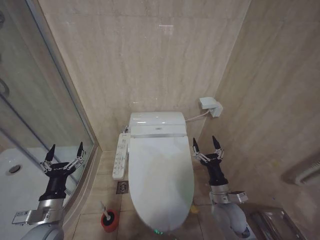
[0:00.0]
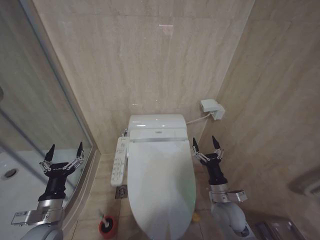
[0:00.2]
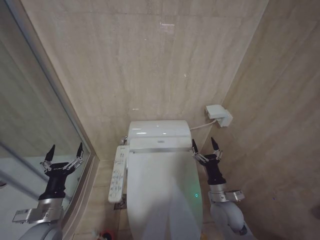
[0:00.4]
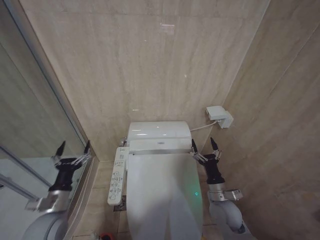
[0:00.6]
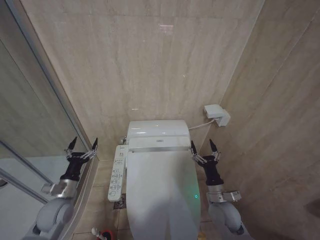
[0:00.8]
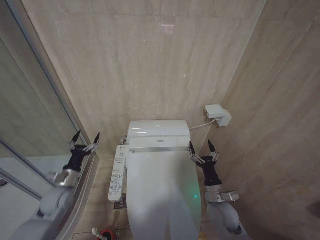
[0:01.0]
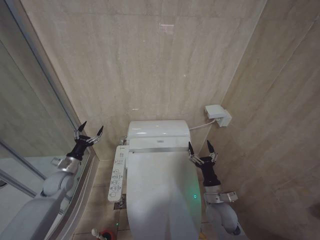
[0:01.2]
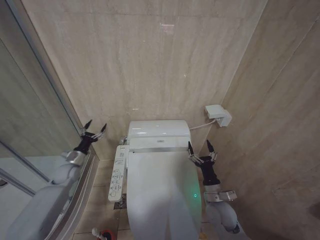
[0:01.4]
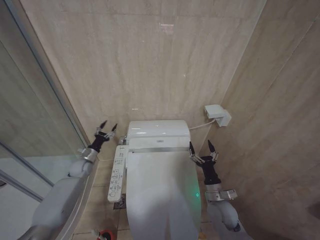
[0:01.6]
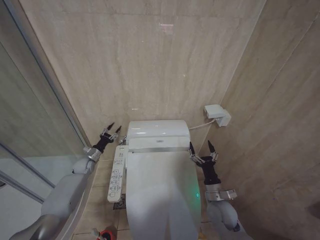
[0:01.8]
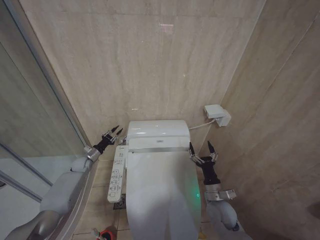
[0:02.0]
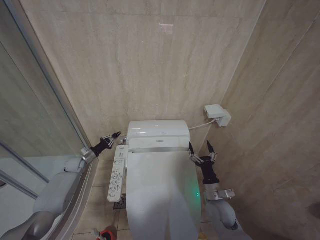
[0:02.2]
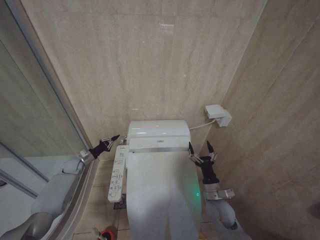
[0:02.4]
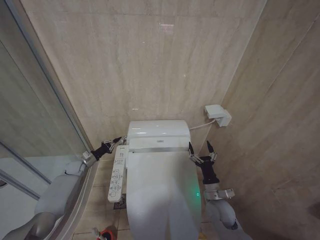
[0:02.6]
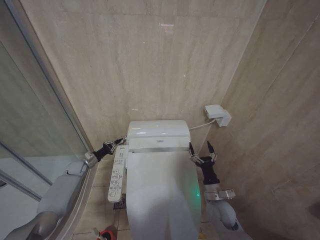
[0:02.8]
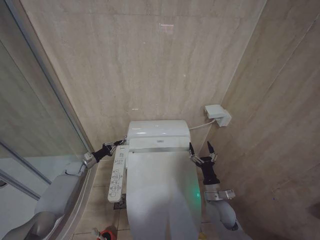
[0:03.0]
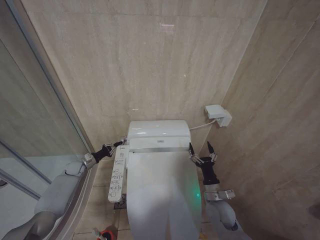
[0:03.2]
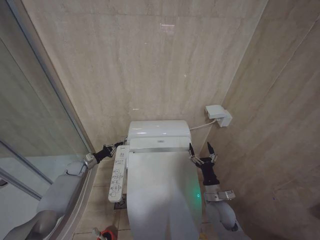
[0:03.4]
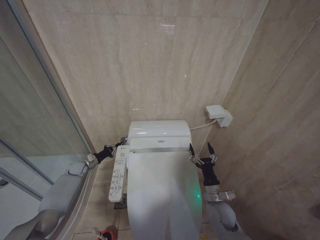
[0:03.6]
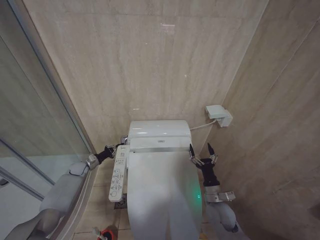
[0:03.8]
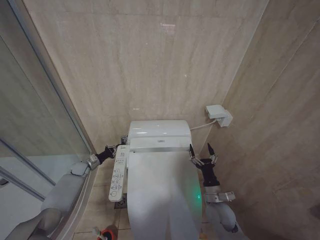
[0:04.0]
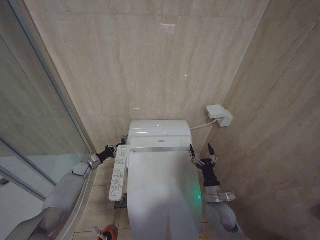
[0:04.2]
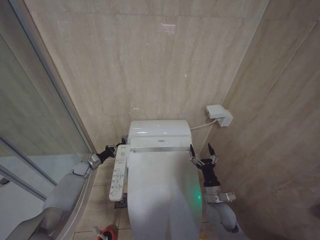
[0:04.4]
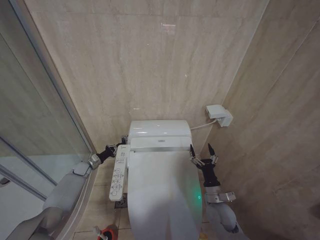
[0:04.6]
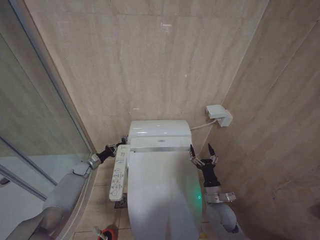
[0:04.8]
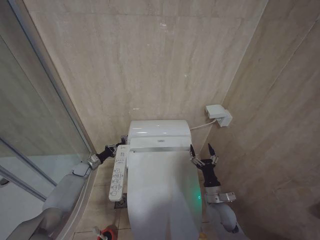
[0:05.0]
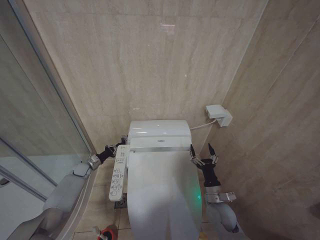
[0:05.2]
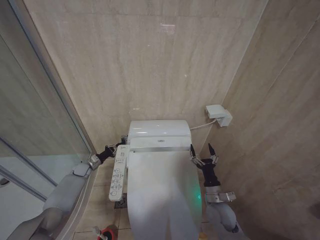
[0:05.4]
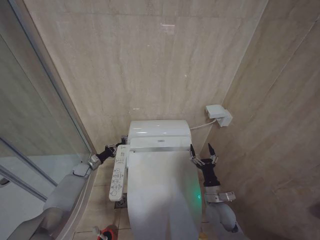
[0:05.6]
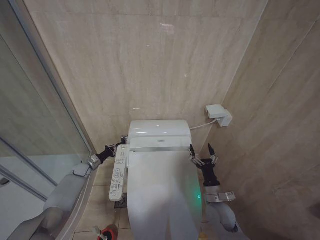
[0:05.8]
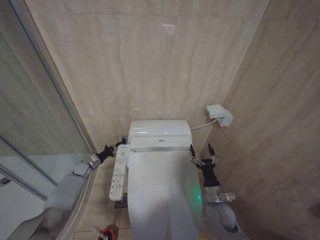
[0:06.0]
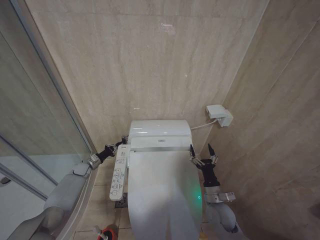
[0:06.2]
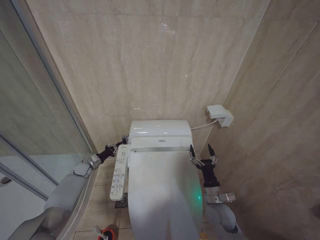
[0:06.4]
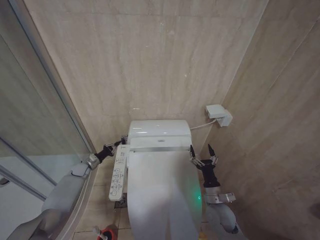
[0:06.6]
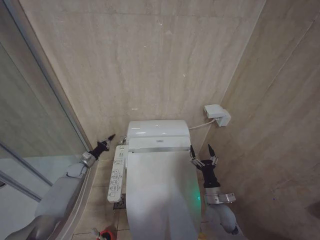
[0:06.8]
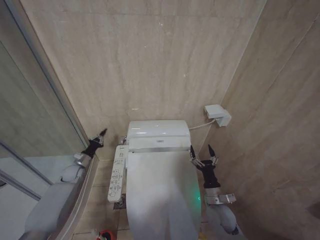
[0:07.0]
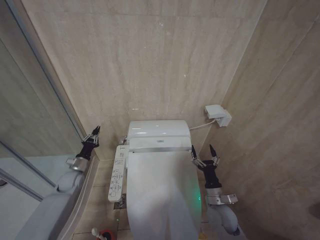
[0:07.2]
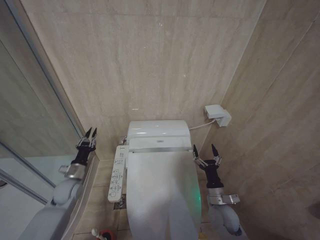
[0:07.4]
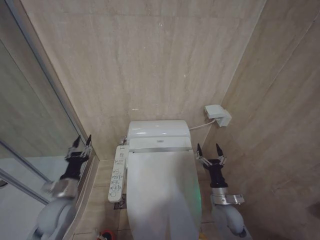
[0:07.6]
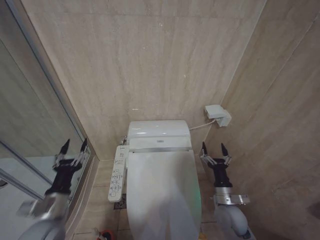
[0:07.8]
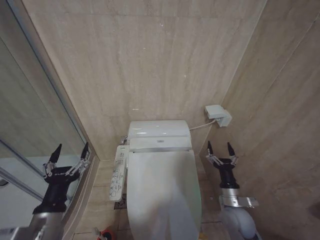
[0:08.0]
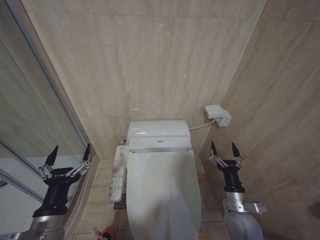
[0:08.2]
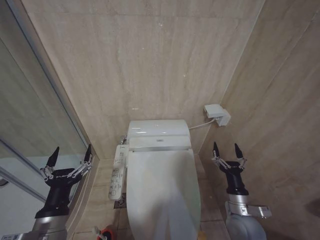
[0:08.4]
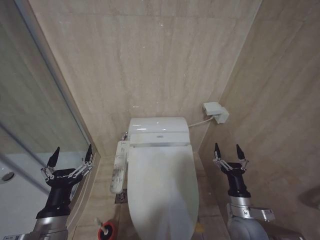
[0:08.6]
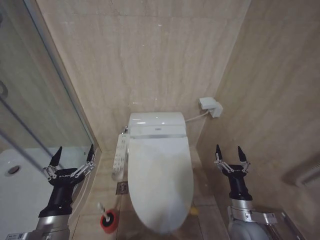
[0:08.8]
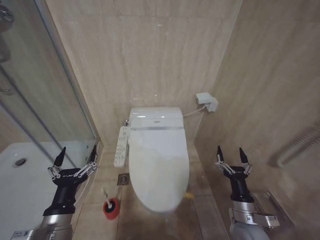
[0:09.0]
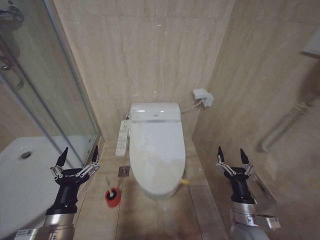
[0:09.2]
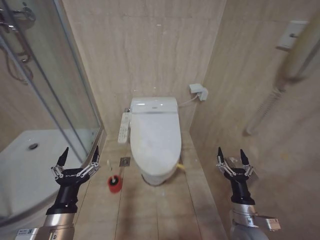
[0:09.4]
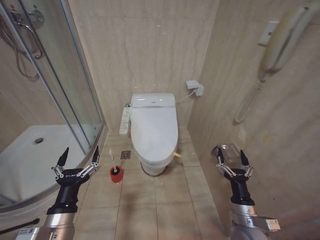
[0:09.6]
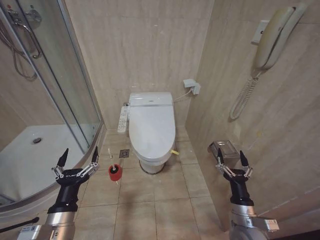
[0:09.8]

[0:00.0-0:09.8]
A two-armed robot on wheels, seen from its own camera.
Task of the whole recording: Open the toilet lid, clean the toilet bowl with a toilet brush, close the toilet lid, and flush.
0:00.0 to 0:01.4: The left gripper heads forward, covering roughly 25 cm.
0:01.4 to 0:02.8: The left gripper travels forward and downward by approximately 10 cm, and closes.
0:02.8 to 0:04.2: The grippers stay close to where they were, moving slightly.
0:04.2 to 0:05.6: Neither gripper changes place.
0:07.0 to 0:08.4: The right gripper travels upward and backward by roughly 10 cm. The left gripper goes roughly 40 cm backward, upward and to the right, and opens up.

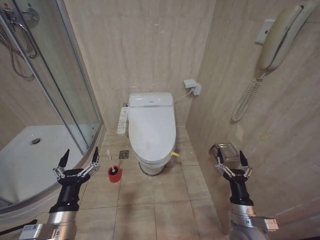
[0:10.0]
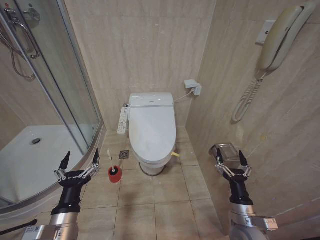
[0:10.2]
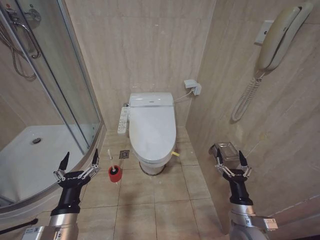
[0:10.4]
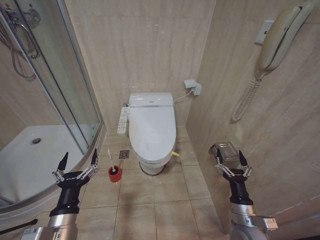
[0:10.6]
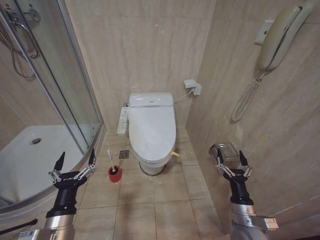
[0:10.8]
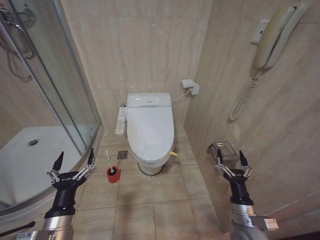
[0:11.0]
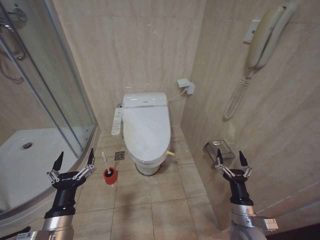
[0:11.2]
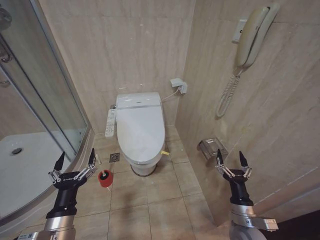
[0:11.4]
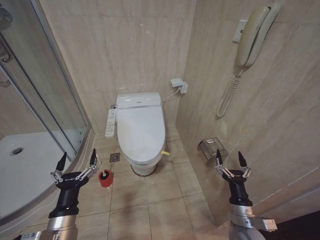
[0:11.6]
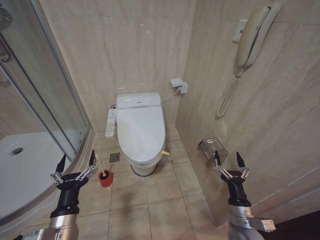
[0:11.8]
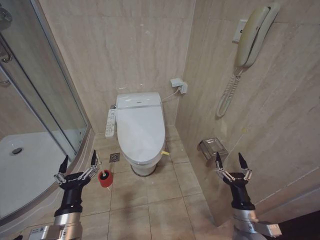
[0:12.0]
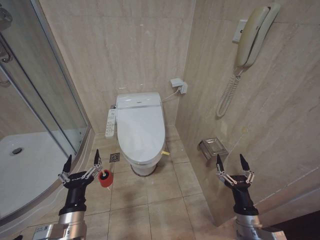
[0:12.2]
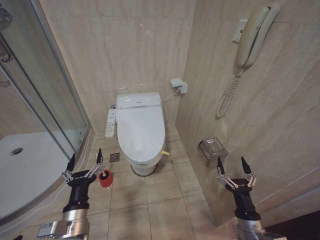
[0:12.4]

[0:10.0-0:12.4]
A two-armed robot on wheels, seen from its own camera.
Task of the whole recording: Open the toilet lid, clean the toilet bowl with a toilet brush, close the toilet lid, and flush.
0:10.0 to 0:11.2: Both grippers stay about where they are.
0:11.2 to 0:12.4: The grippers make only small movements.

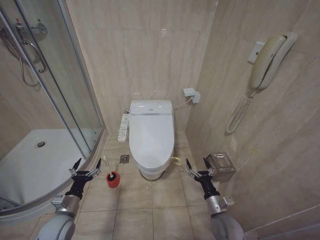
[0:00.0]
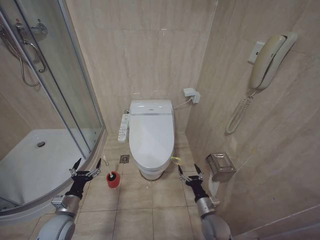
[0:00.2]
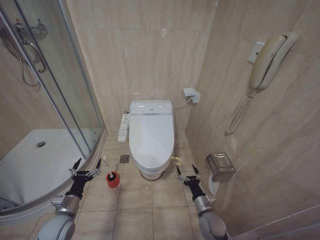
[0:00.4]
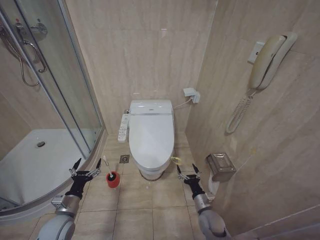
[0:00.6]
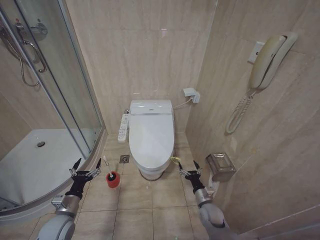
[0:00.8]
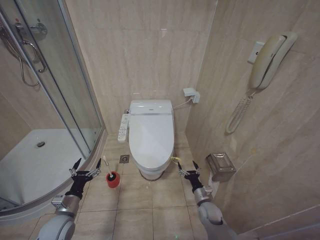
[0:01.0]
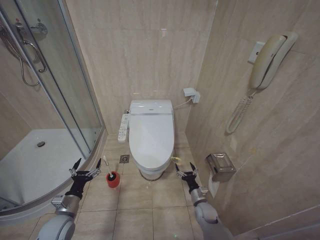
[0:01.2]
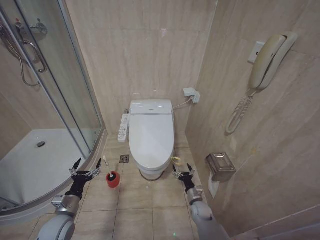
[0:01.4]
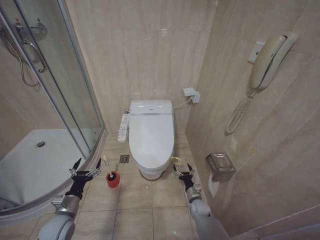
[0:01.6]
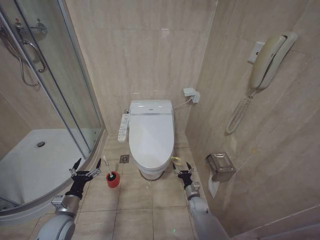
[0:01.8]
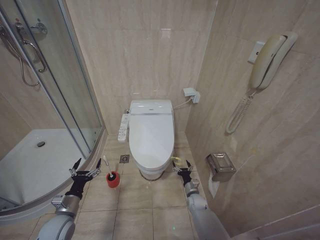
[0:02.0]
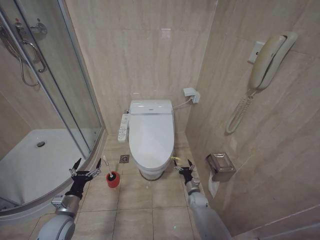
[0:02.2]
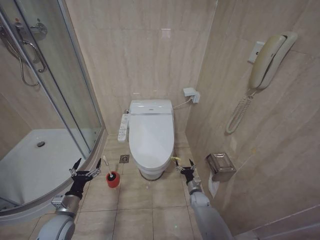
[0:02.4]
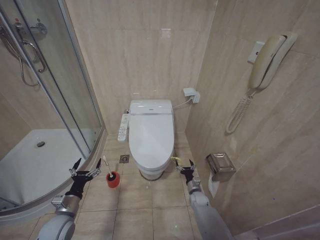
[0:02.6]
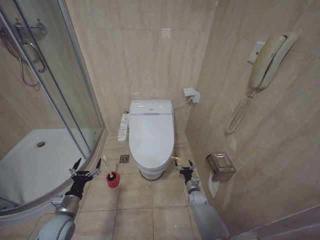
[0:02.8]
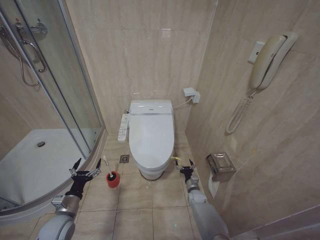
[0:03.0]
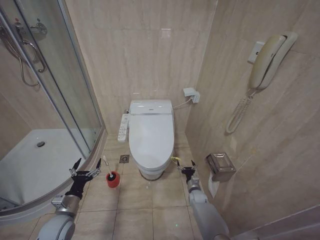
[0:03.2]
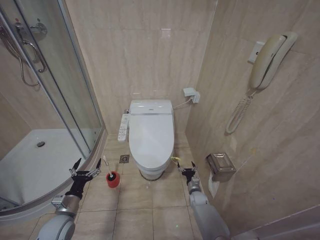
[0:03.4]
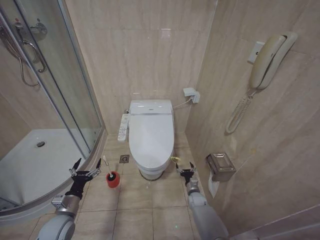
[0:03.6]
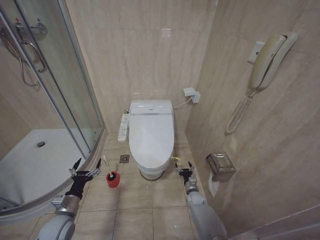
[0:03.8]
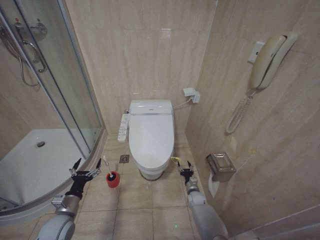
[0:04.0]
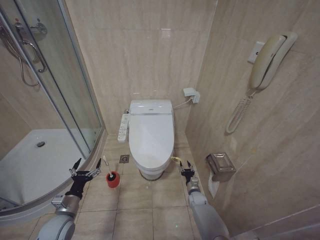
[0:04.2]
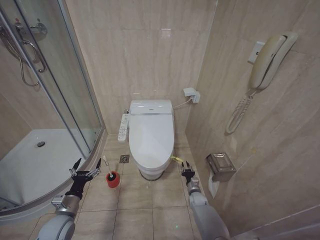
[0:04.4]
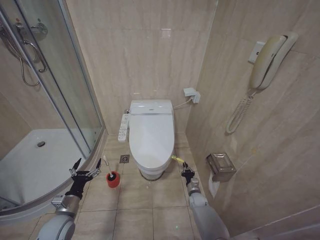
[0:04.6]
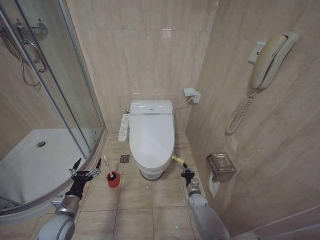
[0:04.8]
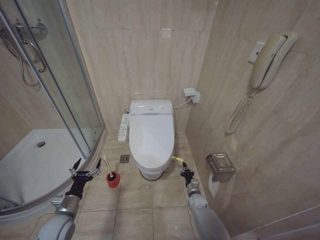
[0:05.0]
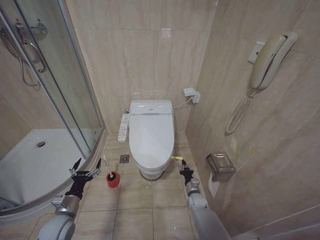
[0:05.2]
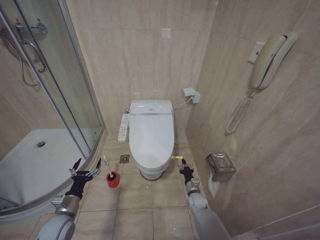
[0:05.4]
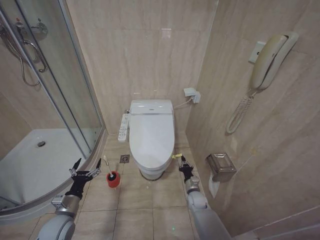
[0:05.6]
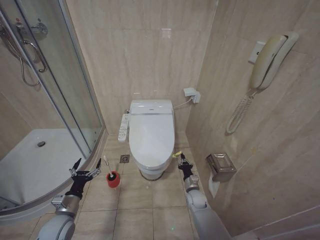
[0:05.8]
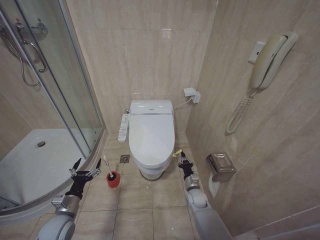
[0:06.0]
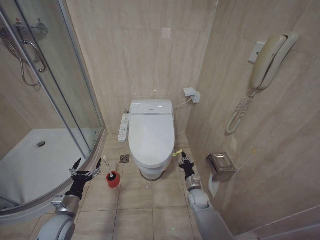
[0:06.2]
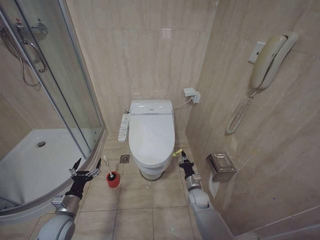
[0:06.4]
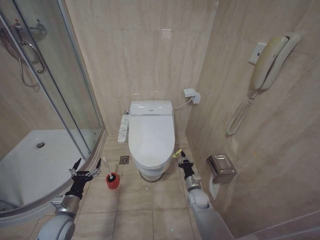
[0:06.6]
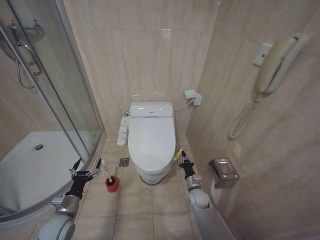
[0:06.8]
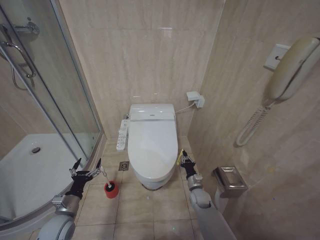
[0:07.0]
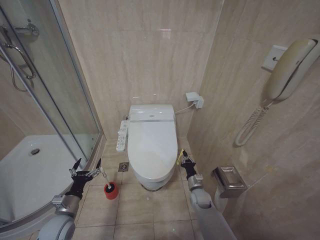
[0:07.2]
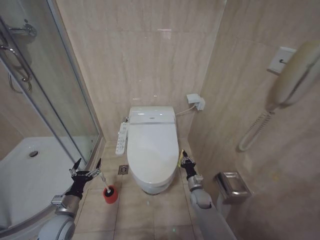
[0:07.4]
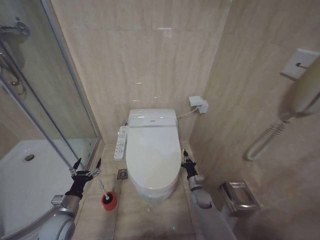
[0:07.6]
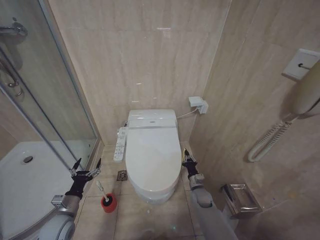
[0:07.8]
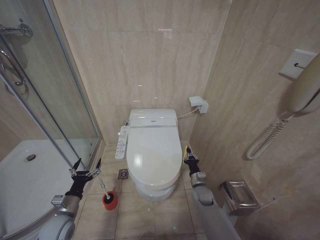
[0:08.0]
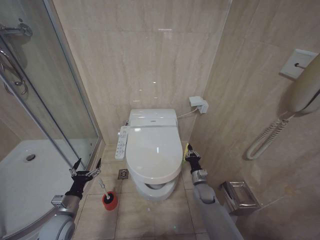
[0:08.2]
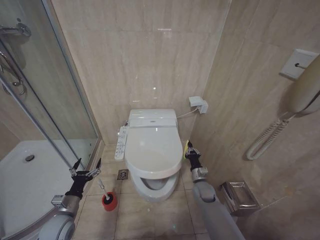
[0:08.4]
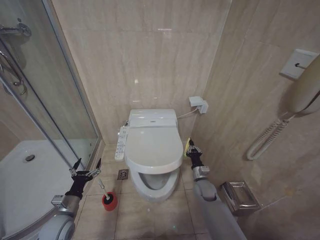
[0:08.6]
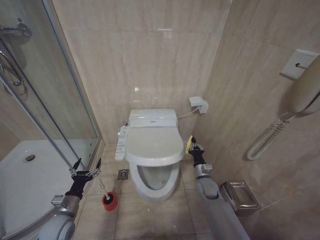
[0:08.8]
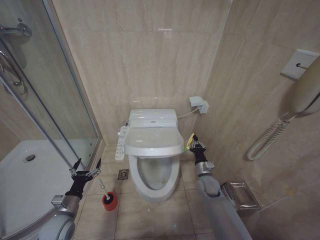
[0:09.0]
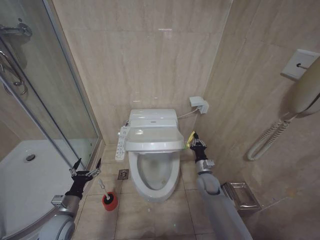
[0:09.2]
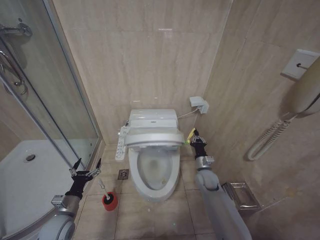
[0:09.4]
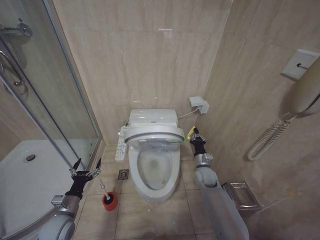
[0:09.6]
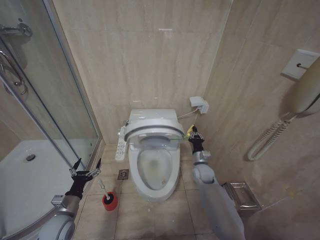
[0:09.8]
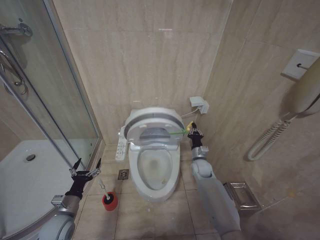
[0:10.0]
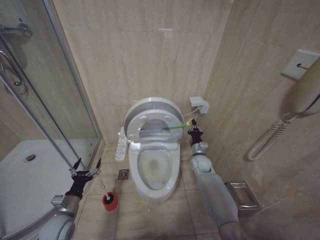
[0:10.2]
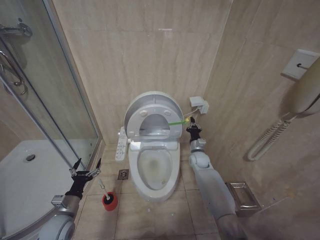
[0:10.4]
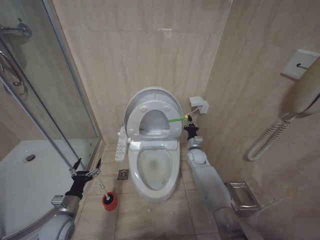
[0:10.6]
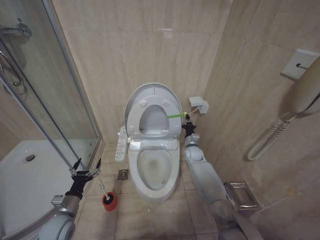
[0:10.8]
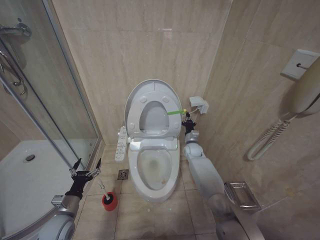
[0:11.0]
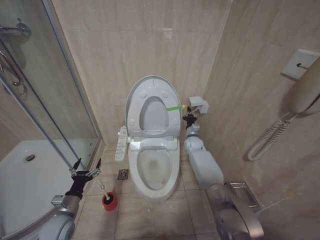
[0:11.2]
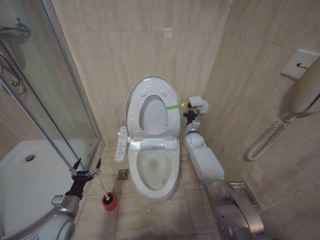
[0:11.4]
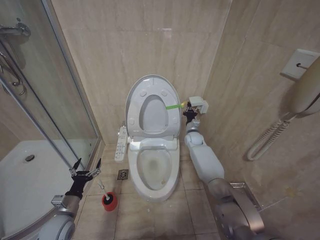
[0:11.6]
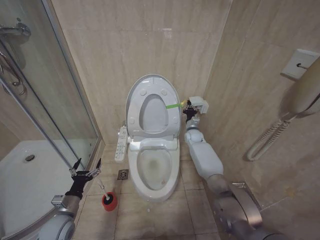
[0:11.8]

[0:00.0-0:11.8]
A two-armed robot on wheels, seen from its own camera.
Task of the whole recording: Open the toilet lid, clean the toilet bowl with a toilet brush, close the toilet lid, and flush.
0:01.4 to 0:03.0: The right gripper heads forward, covering approximately 10 cm.
0:04.4 to 0:06.0: The right gripper is displaced upward by some 10 cm, and closes its fingers.
0:06.0 to 0:07.4: There are only small adjustments of the grippers.
0:07.4 to 0:08.8: The right gripper shifts roughly 5 cm upward.
0:08.8 to 0:10.4: The right gripper heads forward and upward, covering about 15 cm.
0:10.4 to 0:11.8: The right gripper moves forward and upward, some 10 cm.
